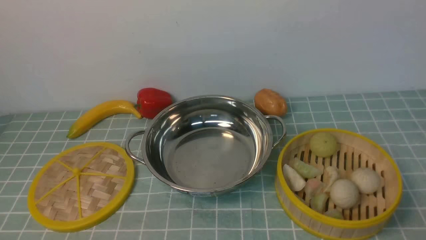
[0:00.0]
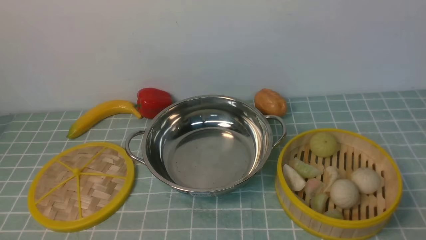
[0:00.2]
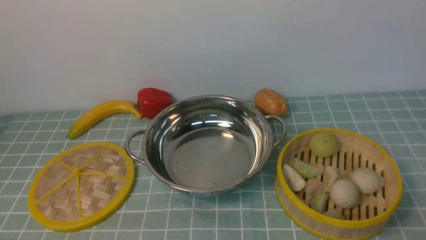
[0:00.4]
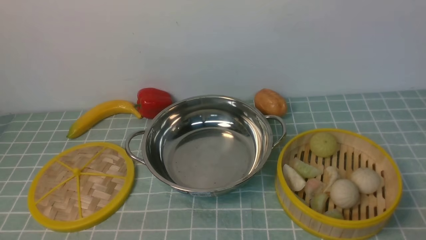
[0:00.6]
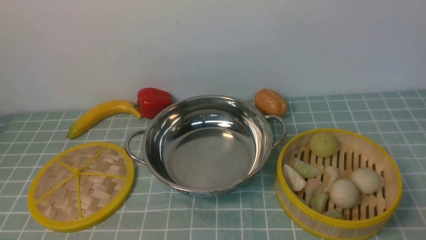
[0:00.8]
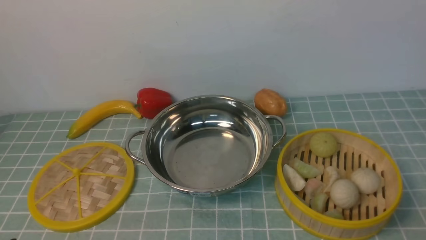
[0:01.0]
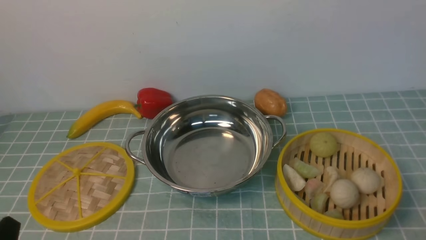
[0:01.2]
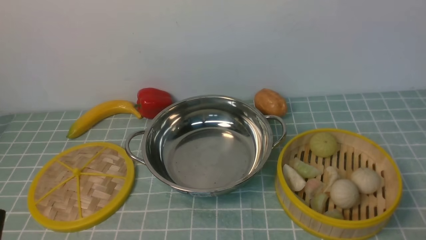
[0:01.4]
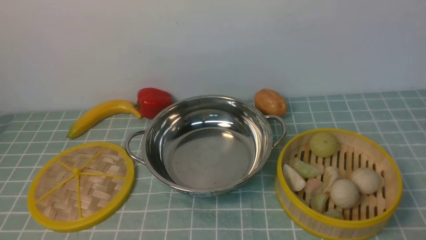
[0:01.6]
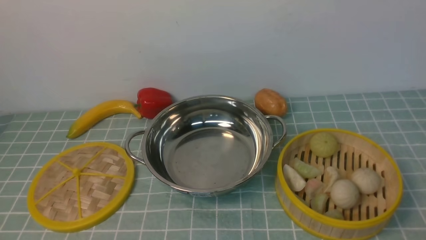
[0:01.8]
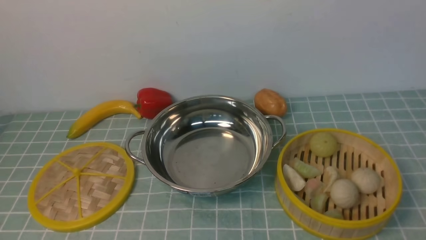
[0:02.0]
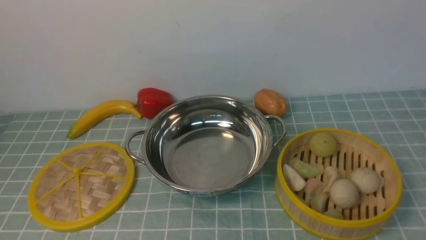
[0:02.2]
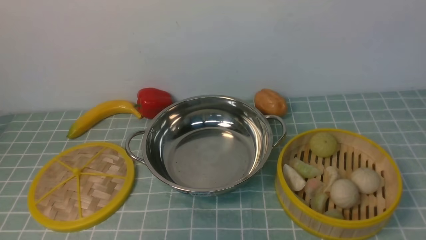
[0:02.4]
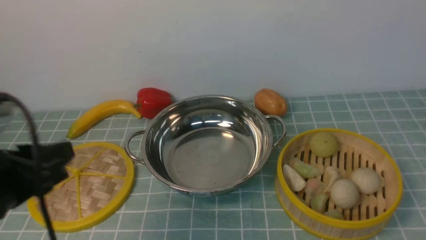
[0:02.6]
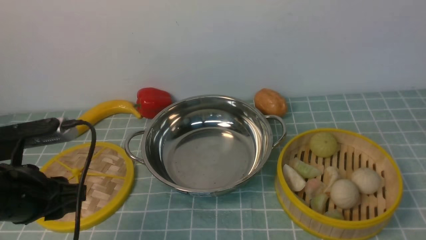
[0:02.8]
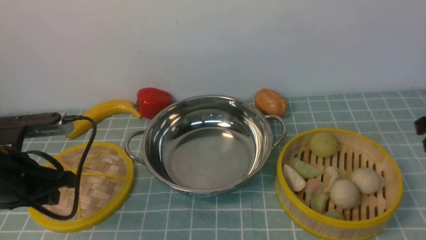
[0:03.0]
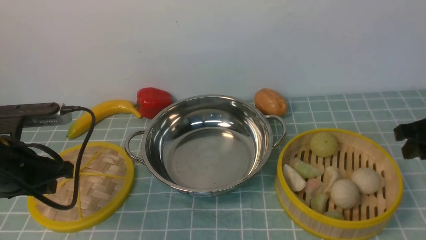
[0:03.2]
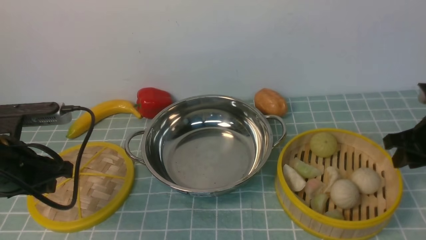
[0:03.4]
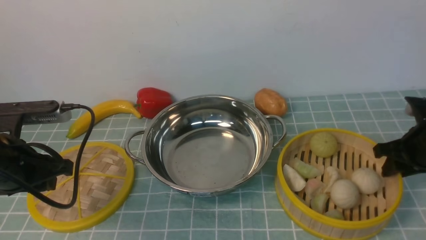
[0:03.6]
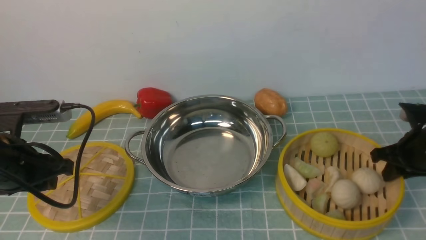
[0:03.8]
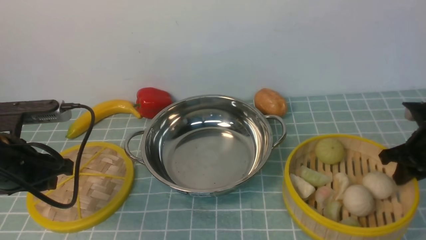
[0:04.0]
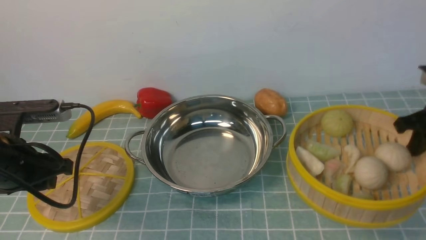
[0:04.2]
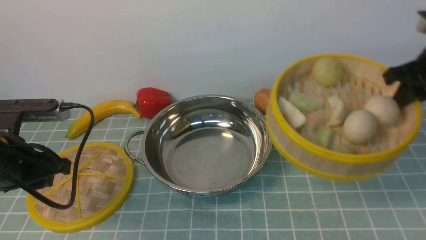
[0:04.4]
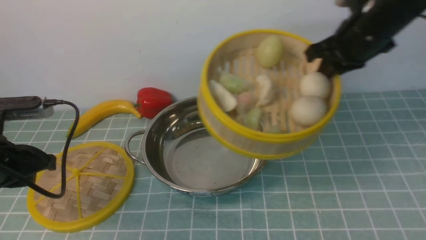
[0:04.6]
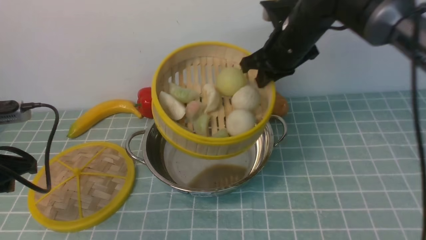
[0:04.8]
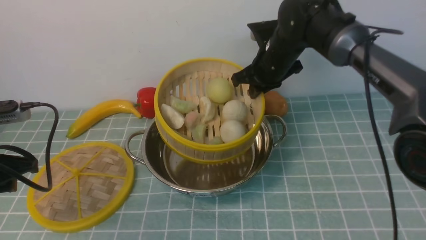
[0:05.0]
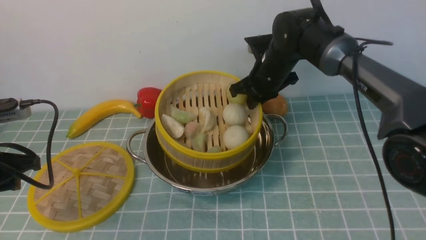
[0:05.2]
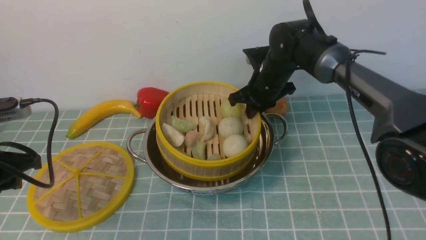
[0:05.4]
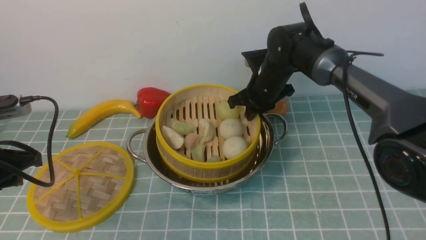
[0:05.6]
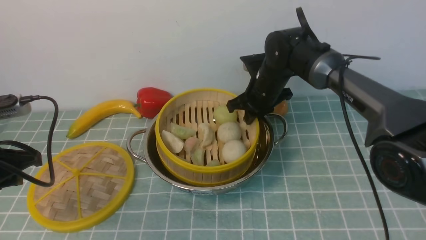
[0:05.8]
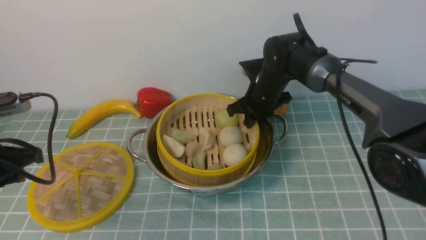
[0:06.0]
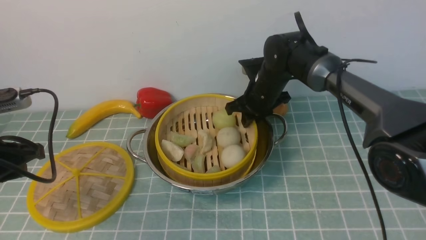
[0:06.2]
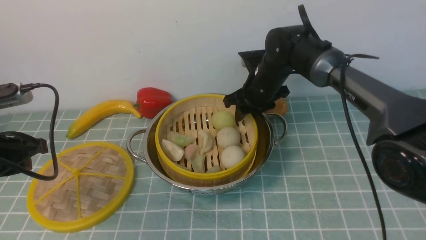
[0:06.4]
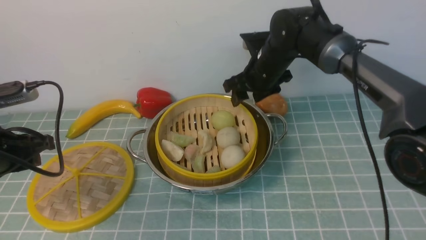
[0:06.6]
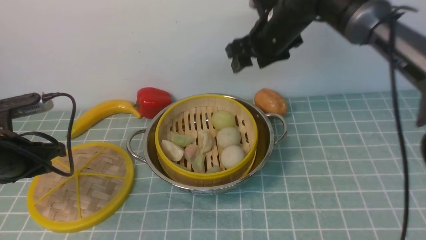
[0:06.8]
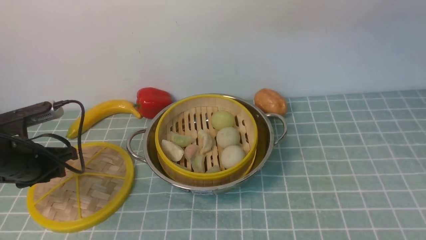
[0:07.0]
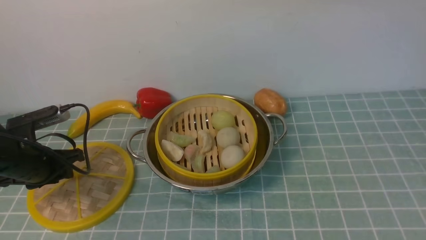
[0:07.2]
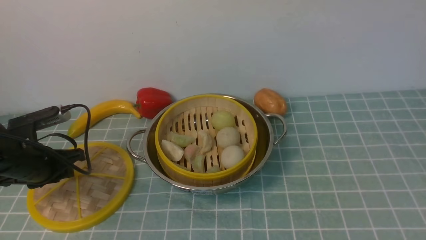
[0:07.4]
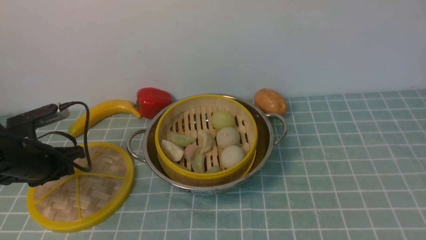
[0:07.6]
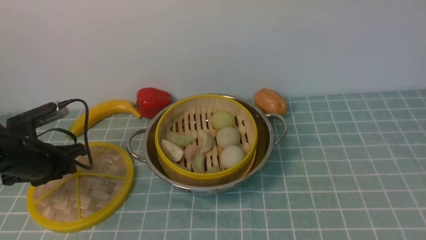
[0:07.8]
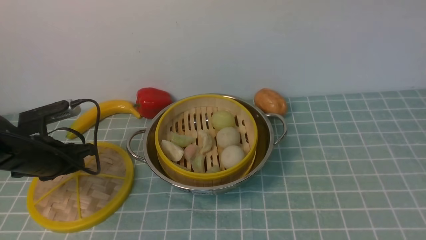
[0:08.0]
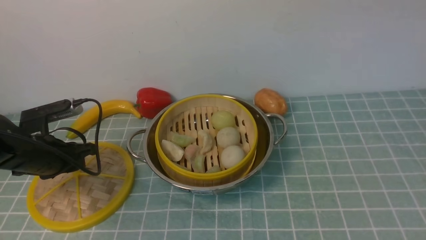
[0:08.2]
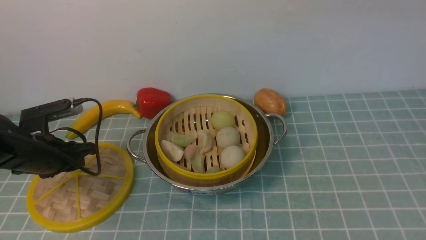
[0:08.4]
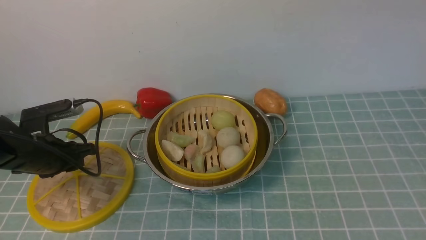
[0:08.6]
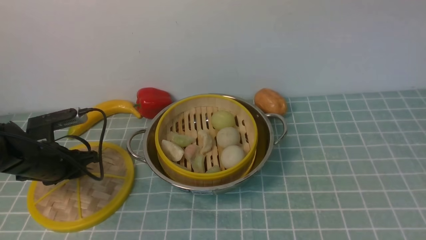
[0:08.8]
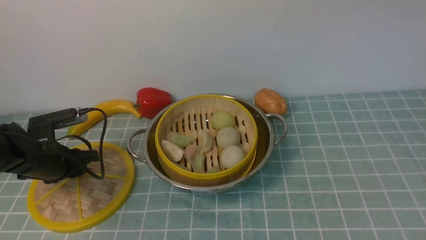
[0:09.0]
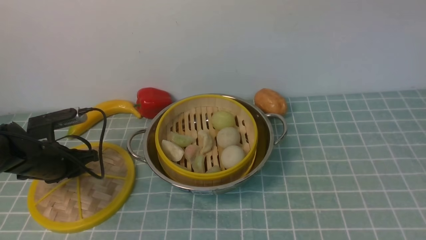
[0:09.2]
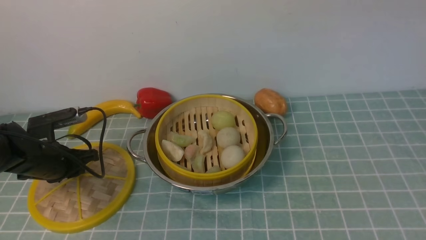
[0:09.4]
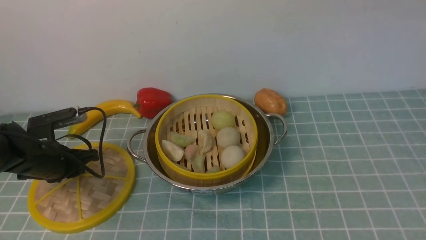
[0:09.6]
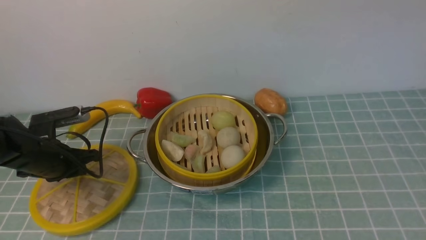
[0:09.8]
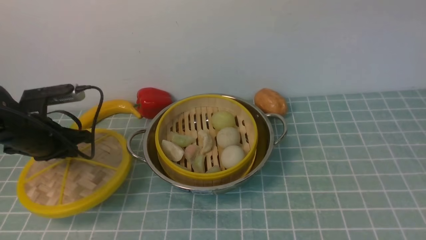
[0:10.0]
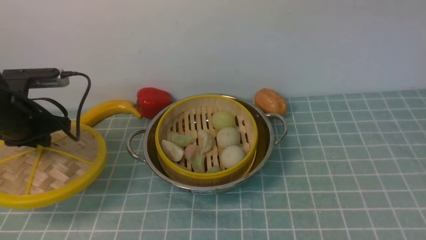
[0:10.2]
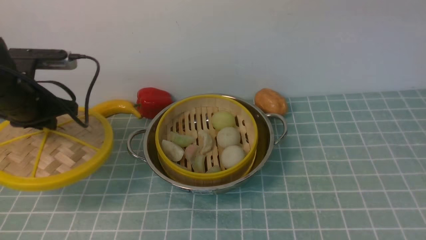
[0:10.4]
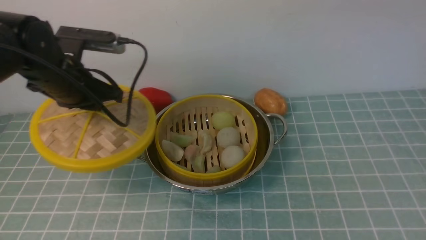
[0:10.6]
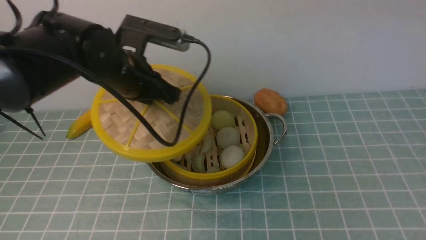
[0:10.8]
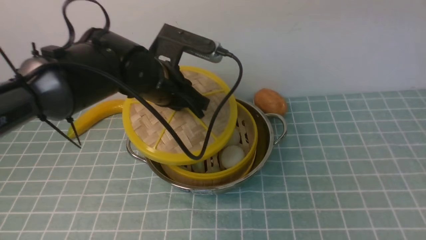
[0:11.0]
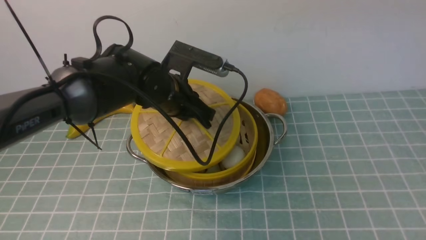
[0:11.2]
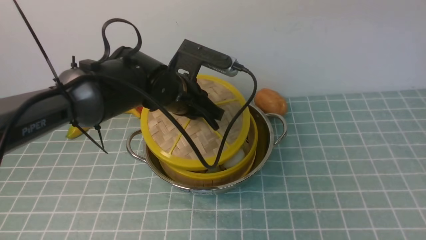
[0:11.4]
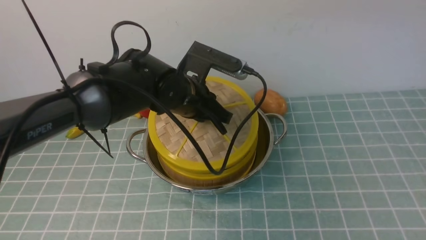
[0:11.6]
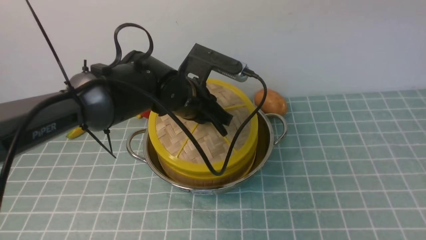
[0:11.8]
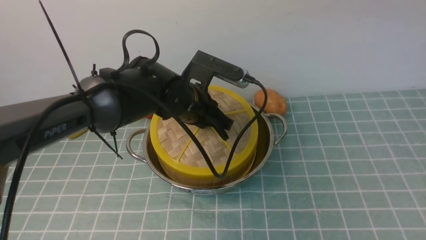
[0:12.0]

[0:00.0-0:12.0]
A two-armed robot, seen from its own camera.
Task of the whole recording: place the steamer in the pot on the blue tablecloth, and put the lid on the steamer.
Step, 0:00.0 to 0:04.2: use the right arm to lift the steamer closest to it.
Step, 0:04.4 to 0:06.8: use the right arm to put the steamer into the iron steamer pot in the middle.
Step, 0:07.2 to 0:10.2: use the left arm to lift the lid of the steamer.
0:01.6 to 0:03.0: The two grippers go some 20 cm forward.
0:03.0 to 0:04.4: The right gripper moves forward and to the left, roughly 10 cm, and travels downward and back again, some 10 cm each way.
0:04.4 to 0:06.0: The right gripper is displaced to the left, downward and forward by approximately 25 cm.
0:06.0 to 0:07.6: The right gripper goes approximately 50 cm upward and backward, and opens. The left gripper is displaced downward and forward by roughly 10 cm.
0:09.0 to 0:10.4: The left gripper heads upward, covering approximately 15 cm.
0:10.4 to 0:12.0: The left gripper is displaced to the right by about 20 cm.

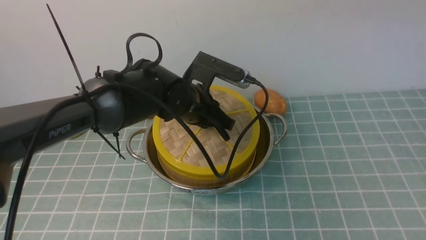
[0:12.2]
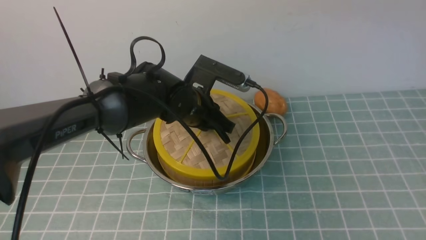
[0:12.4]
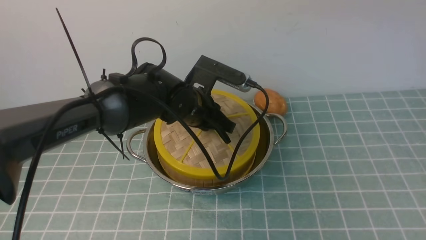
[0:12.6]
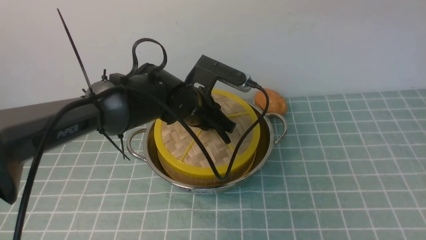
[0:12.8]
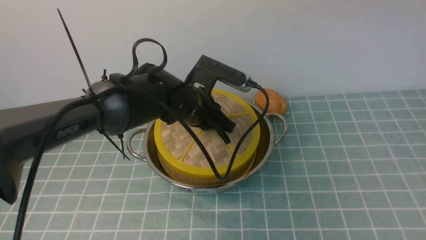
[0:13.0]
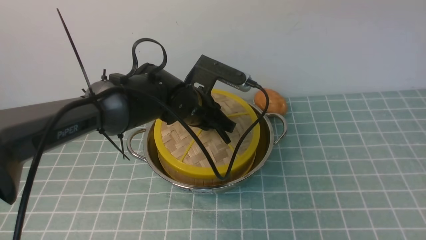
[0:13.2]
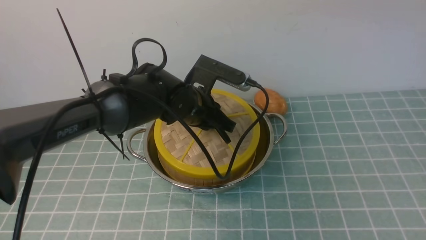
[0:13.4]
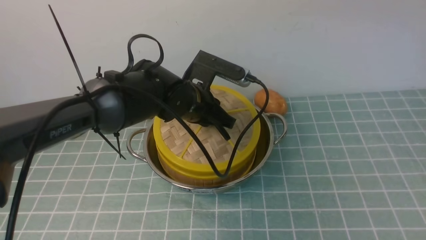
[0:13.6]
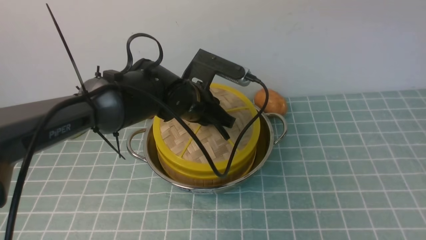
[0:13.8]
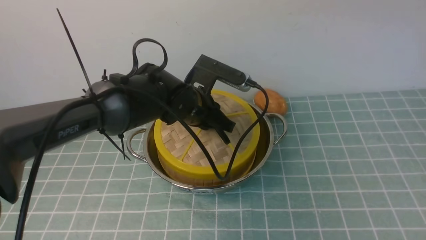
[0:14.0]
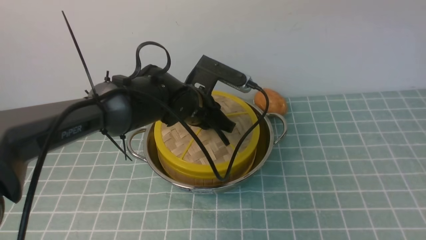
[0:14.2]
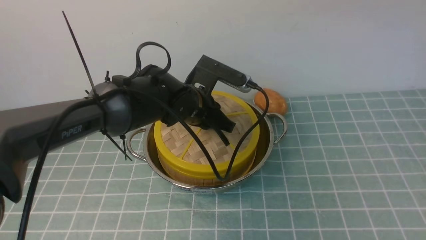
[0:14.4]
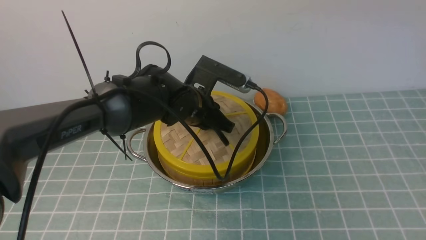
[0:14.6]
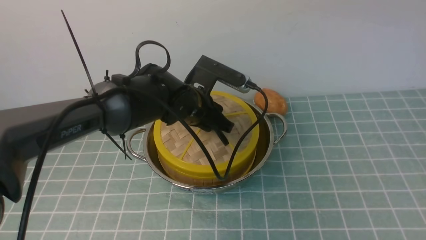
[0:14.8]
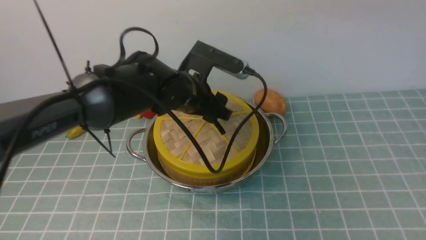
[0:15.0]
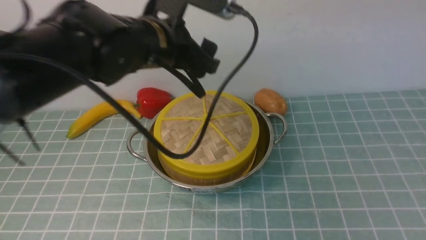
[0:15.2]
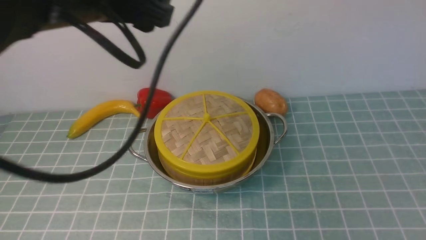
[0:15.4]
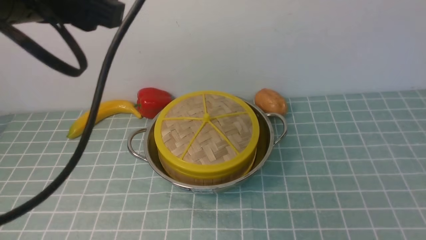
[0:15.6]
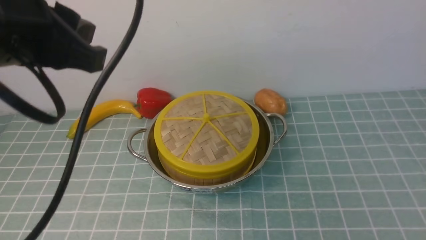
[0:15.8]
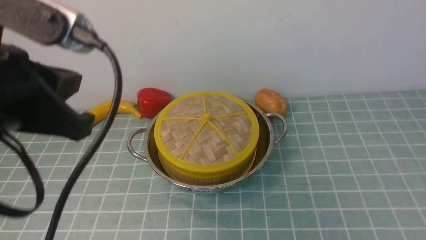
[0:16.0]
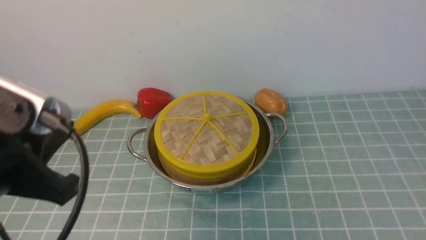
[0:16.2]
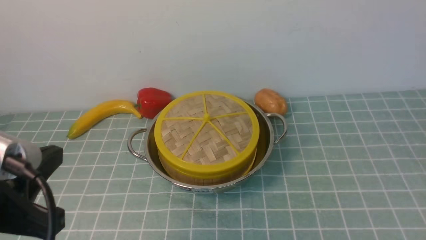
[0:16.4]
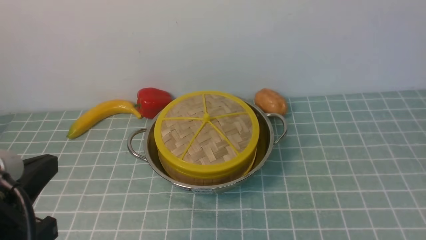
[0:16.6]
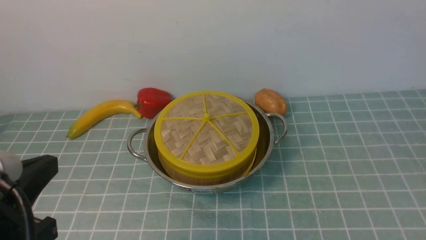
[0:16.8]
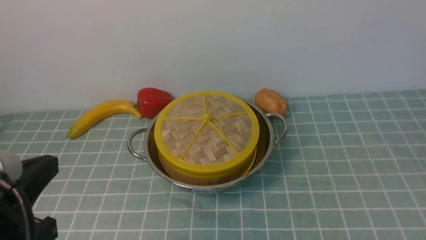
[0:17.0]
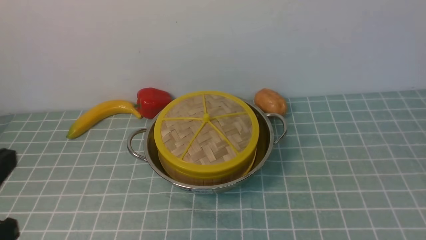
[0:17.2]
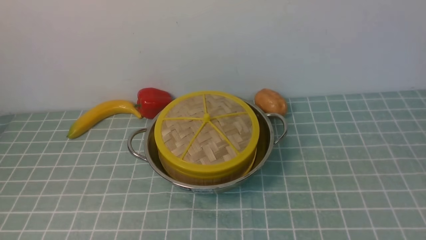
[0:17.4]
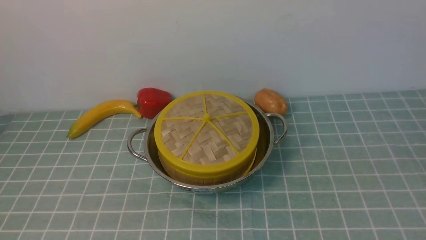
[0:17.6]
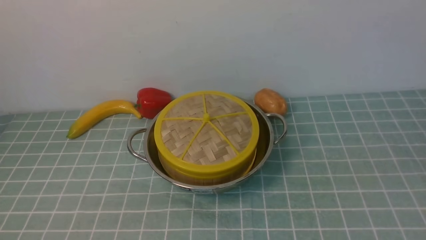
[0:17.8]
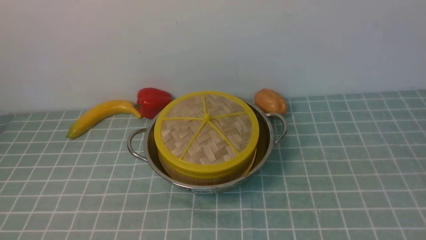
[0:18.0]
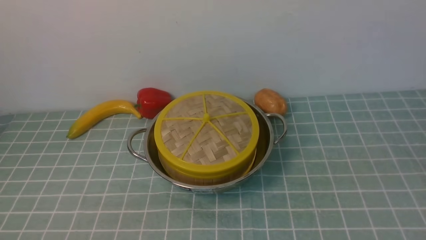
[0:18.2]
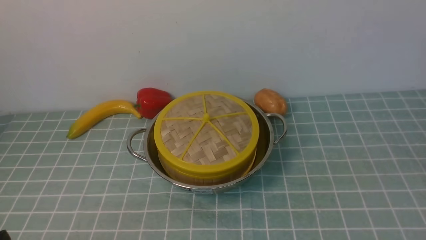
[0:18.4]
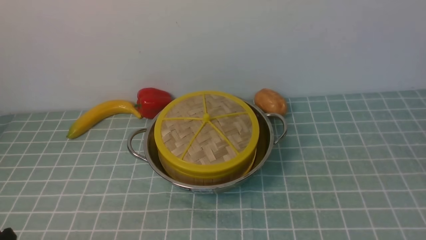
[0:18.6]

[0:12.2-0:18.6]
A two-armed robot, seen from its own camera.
Task of the whole recording: place the steamer in the pot on the blue tablecloth, and put the lid on the steamer.
Step, 0:12.2 to 0:15.4: use the left arm to place the steamer lid on the steamer.
0:12.2 to 0:13.8: Both grippers stay about where they are.
0:13.8 to 0:15.4: The right gripper moves approximately 5 cm, while the left gripper heads upward and backward, covering some 25 cm, and opens up.
0:15.4 to 0:17.0: The right gripper moves downward and backward, some 25 cm, and closes; the left gripper is displaced backward, downward and to the left by approximately 25 cm, and closes up.
0:17.0 to 0:18.6: The left gripper is displaced downward by approximately 15 cm.
